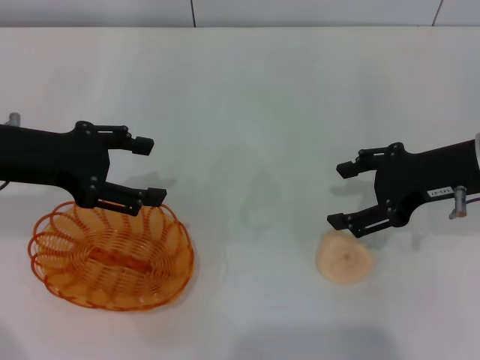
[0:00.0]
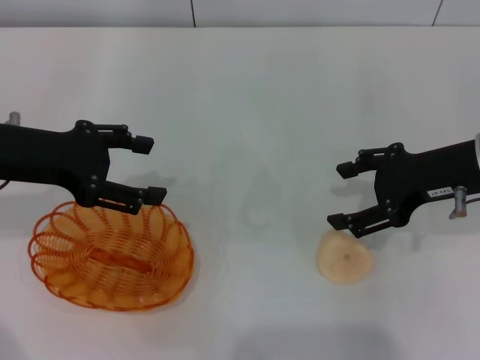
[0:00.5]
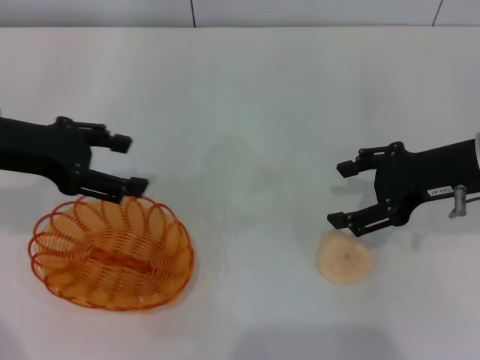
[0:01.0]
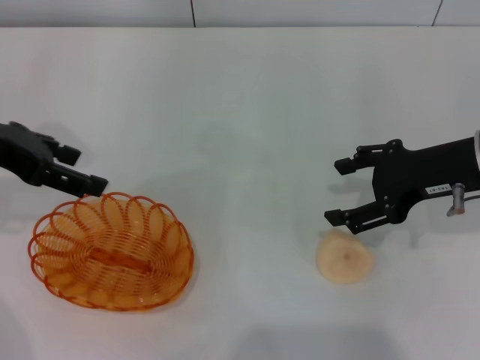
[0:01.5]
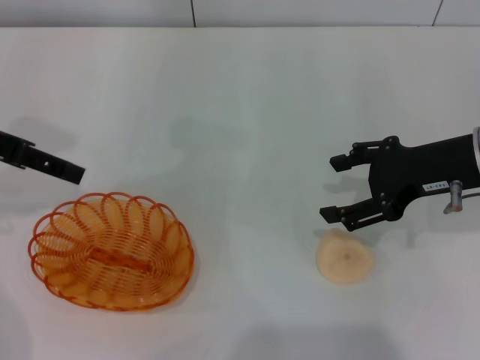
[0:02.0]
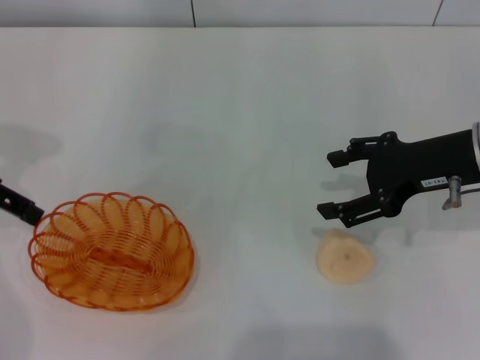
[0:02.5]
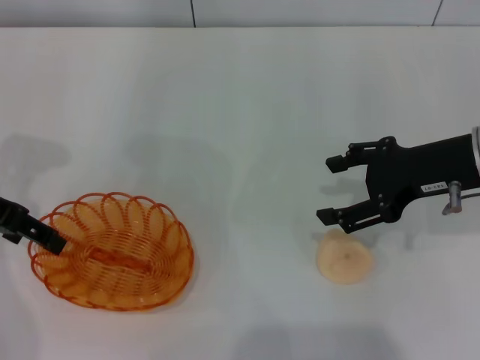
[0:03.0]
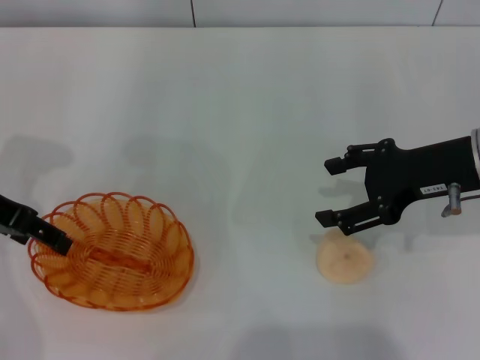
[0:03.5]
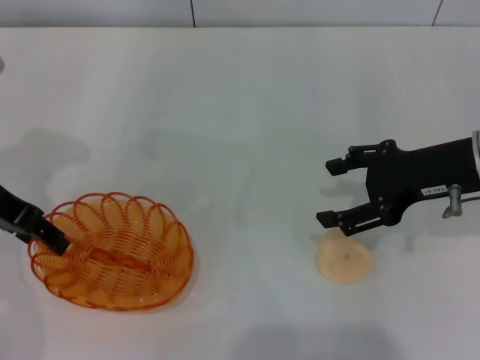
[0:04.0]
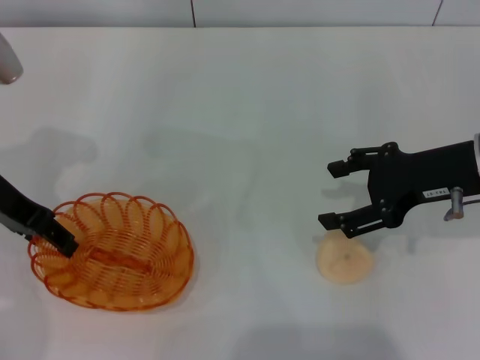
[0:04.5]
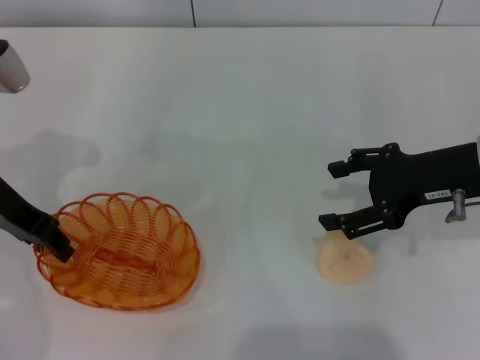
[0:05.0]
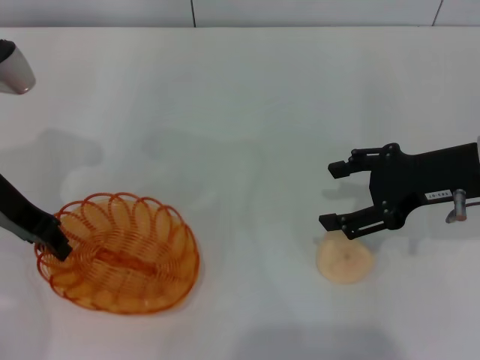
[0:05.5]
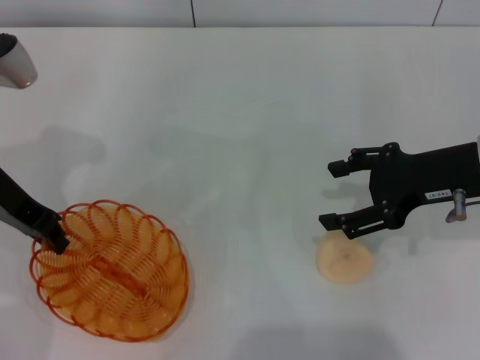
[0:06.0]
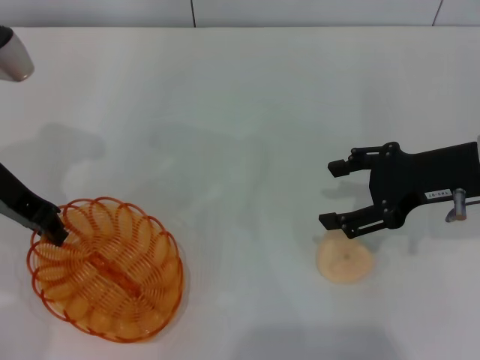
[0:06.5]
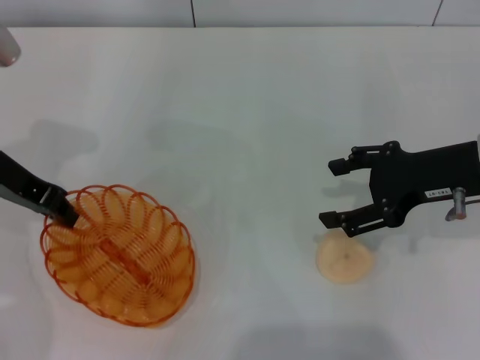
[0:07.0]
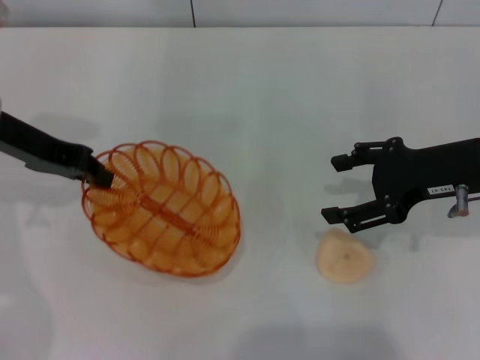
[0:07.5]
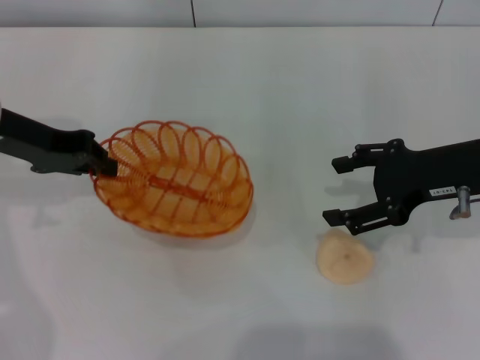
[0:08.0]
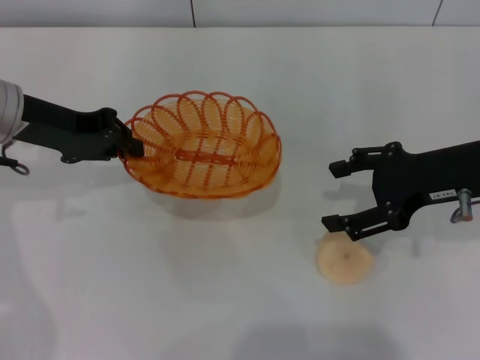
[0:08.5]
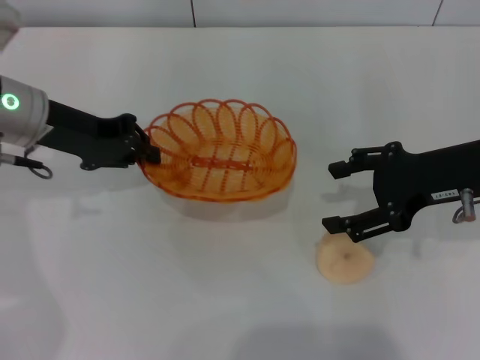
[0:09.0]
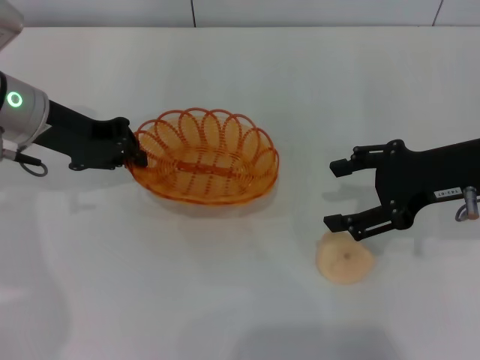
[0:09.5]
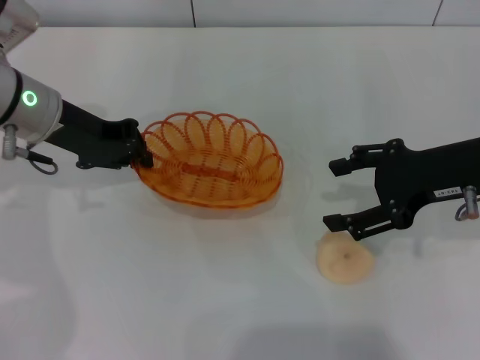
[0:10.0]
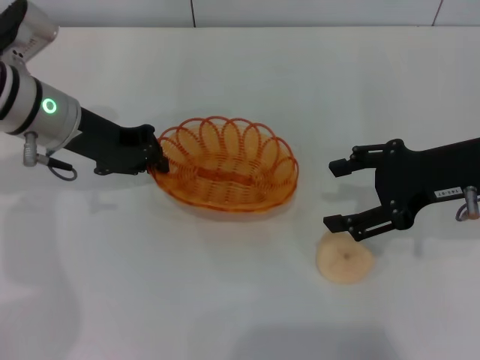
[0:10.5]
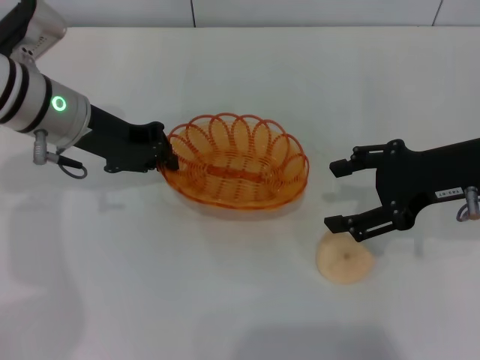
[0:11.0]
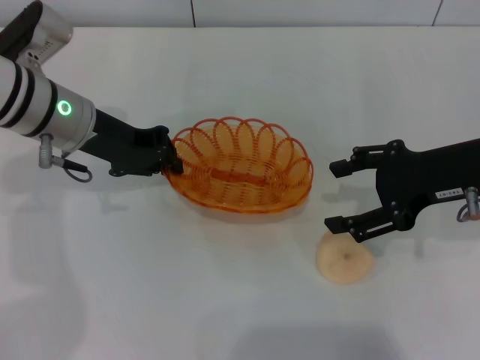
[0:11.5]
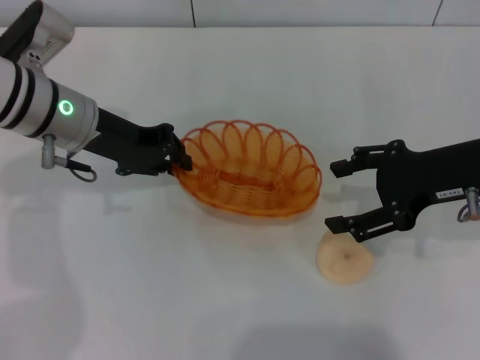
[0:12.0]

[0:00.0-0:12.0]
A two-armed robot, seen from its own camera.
Step, 0:00.0 to 0:07.0: Pick up the basket with the left gripper.
0:00.0 to 0:02.0: The left gripper goes approximately 5 cm upward.
0:04.0 to 0:06.0: The left gripper closes its fingers.
0:08.0 to 0:10.0: The left gripper ends up some 5 cm from where it was.
0:10.0 to 0:12.0: The grippers move only a little.

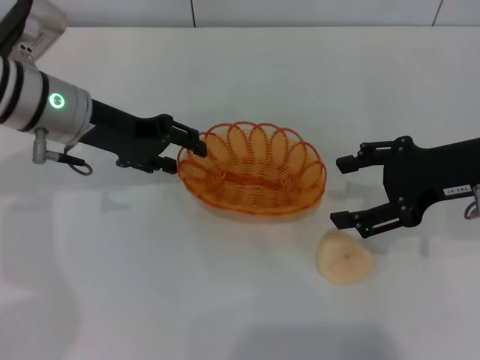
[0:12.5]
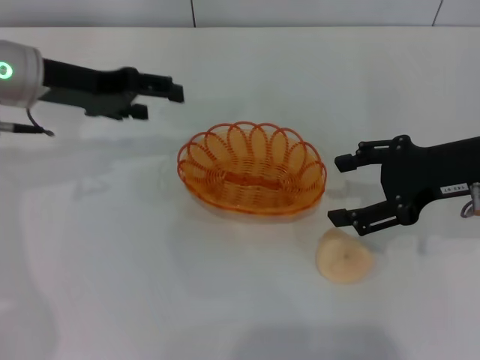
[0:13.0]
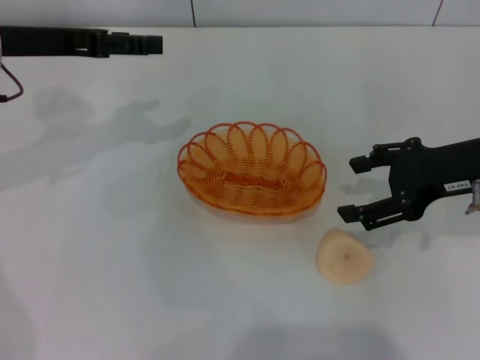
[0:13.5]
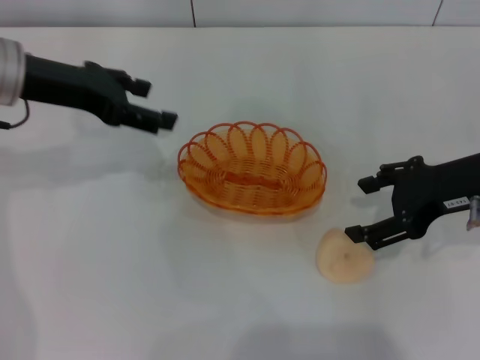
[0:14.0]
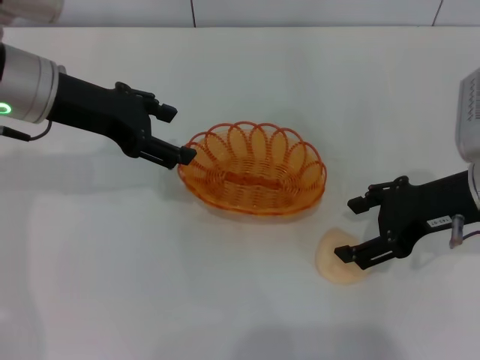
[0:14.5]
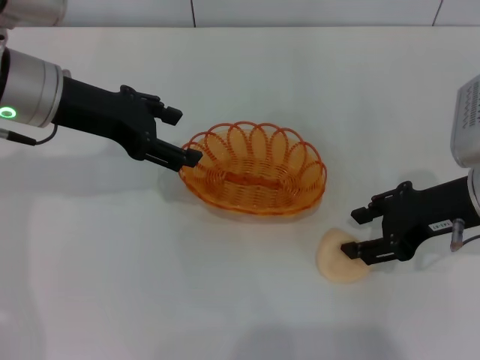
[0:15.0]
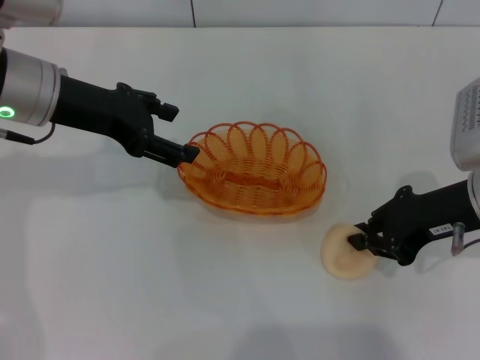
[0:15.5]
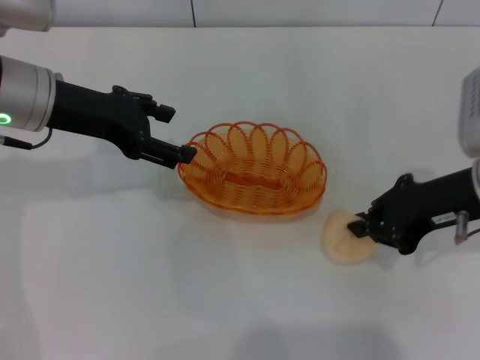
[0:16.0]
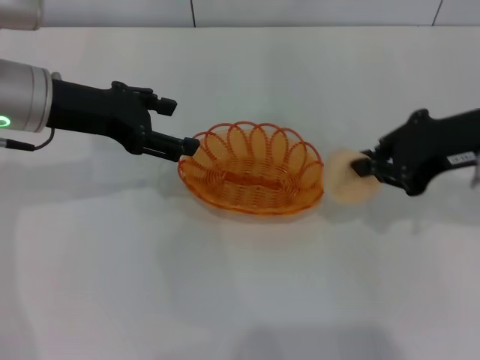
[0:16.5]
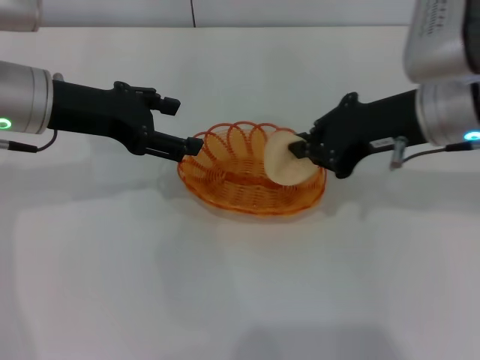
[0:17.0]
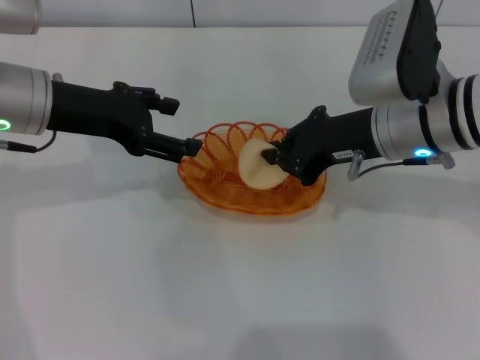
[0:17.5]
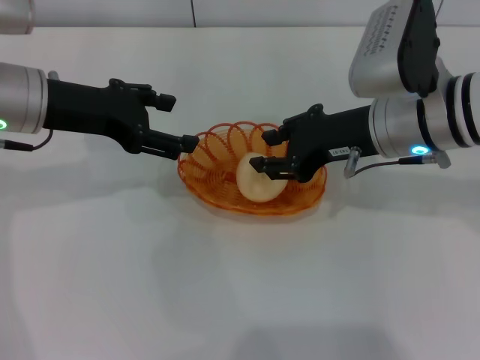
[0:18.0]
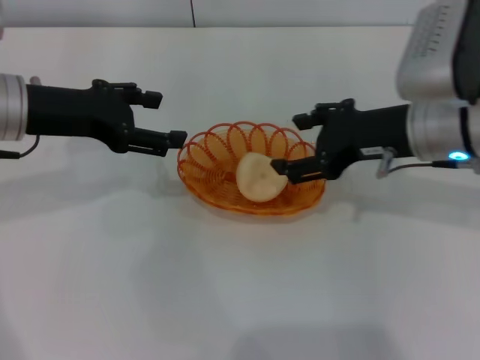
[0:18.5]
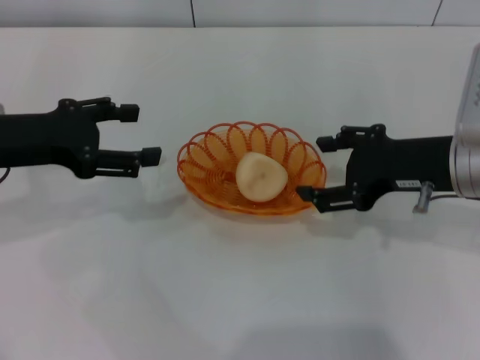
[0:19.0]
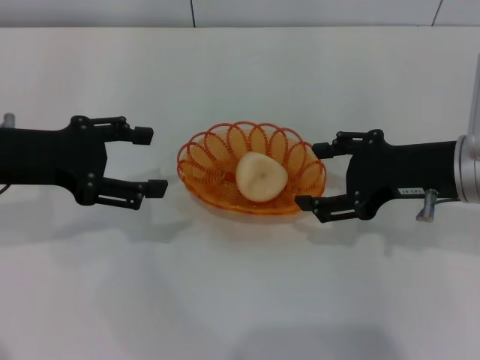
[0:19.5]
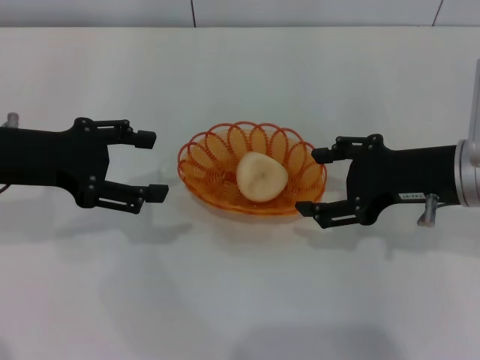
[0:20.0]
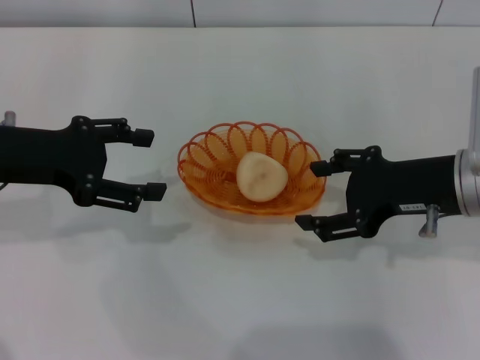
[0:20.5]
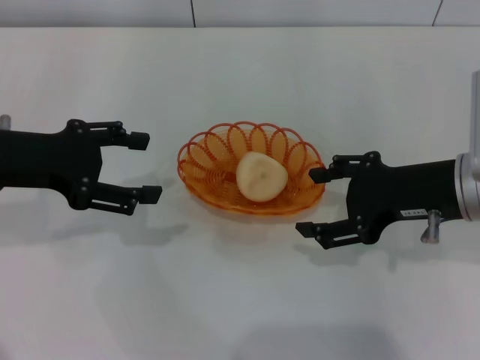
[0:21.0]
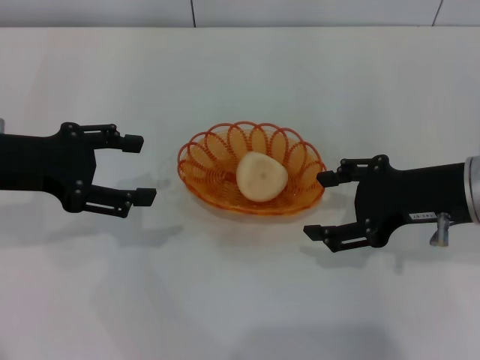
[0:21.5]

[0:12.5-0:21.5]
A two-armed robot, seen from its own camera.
Step, 0:13.5 to 0:16.0: Pick up the egg yolk pastry with the right gripper.
Step, 0:16.5 to 0:19.0: Place the egg yolk pastry into the basket with the right gripper.
0:12.5 to 0:14.5: The left gripper opens.
0:14.5 to 0:17.0: The right gripper shifts roughly 5 cm to the left, and closes.
0:17.0 to 0:19.5: The right gripper ends up approximately 5 cm from where it was, and opens up, while the left gripper goes about 5 cm backward.
0:19.5 to 0:21.5: Both grippers stay put.
